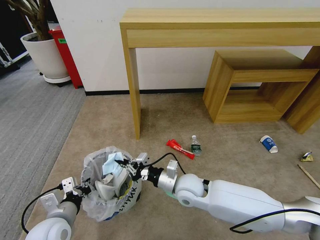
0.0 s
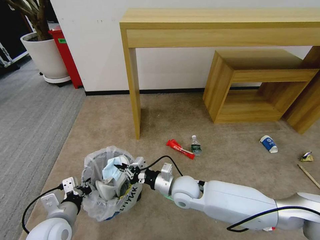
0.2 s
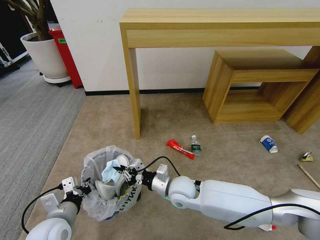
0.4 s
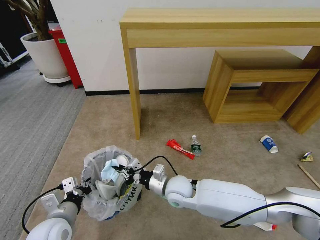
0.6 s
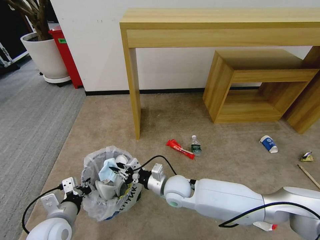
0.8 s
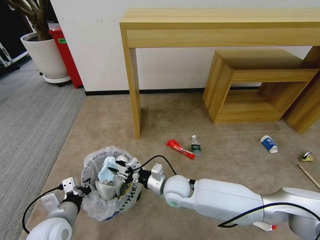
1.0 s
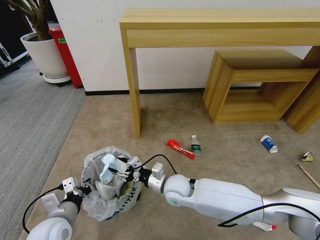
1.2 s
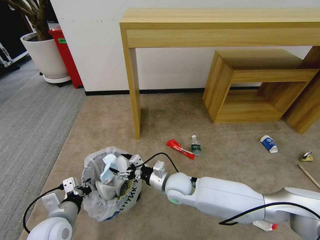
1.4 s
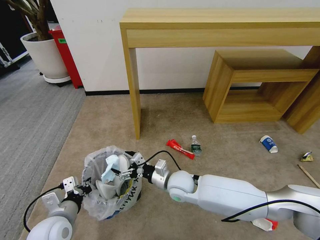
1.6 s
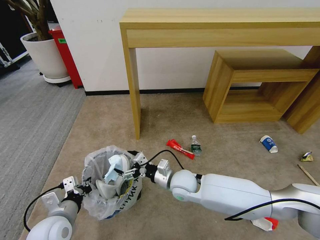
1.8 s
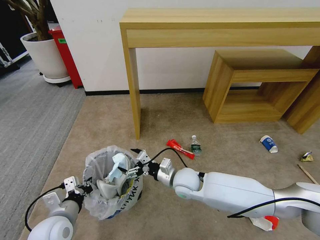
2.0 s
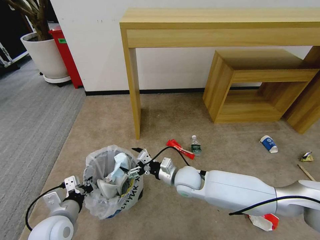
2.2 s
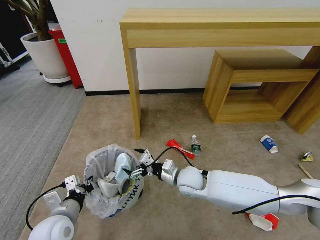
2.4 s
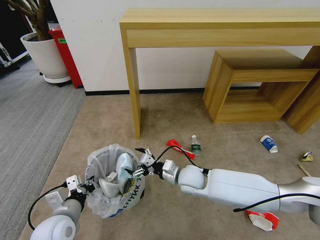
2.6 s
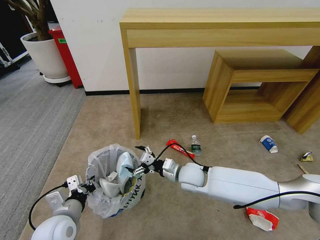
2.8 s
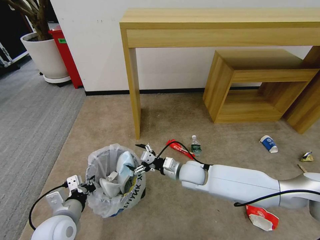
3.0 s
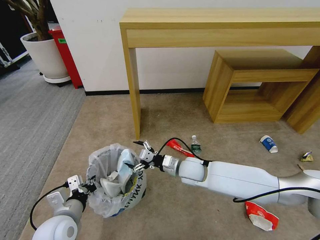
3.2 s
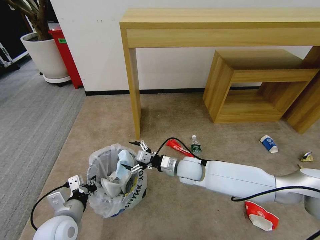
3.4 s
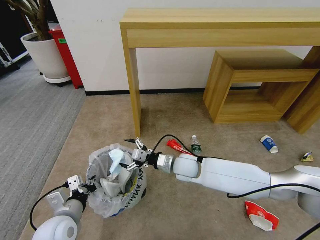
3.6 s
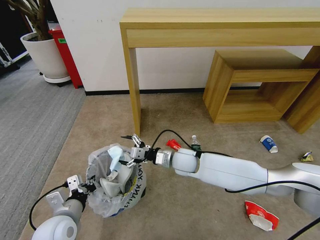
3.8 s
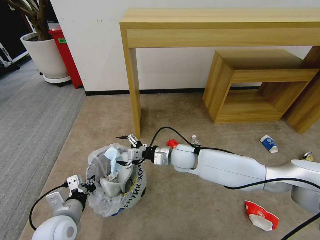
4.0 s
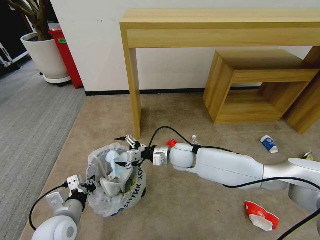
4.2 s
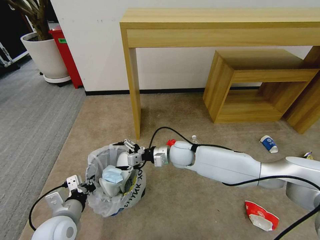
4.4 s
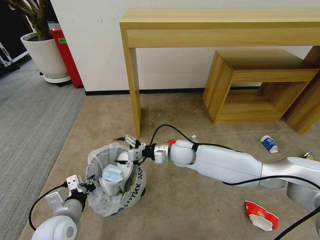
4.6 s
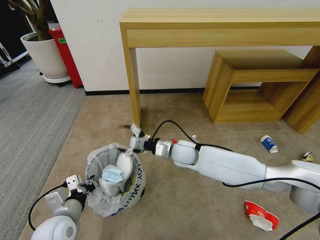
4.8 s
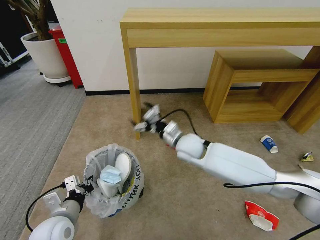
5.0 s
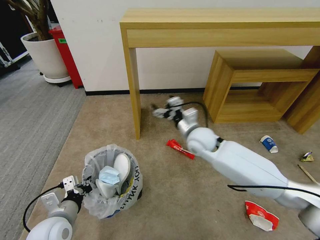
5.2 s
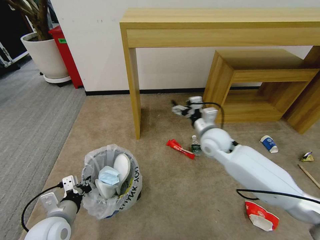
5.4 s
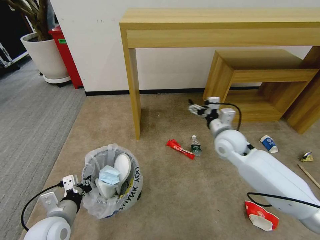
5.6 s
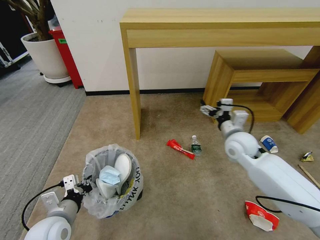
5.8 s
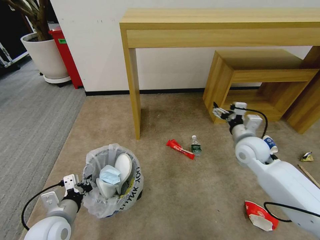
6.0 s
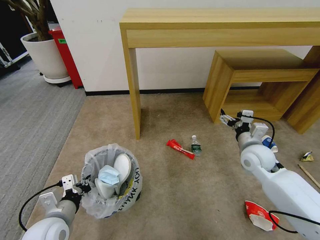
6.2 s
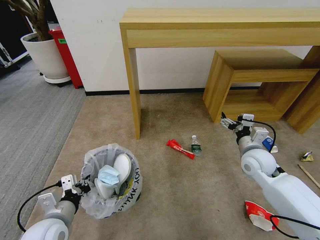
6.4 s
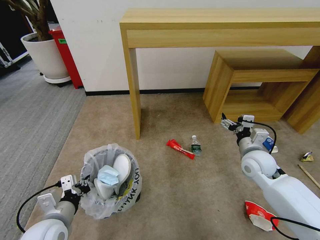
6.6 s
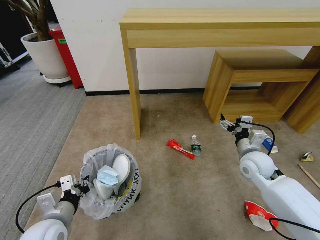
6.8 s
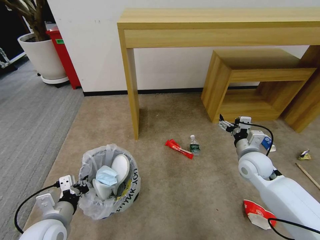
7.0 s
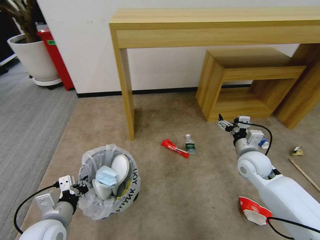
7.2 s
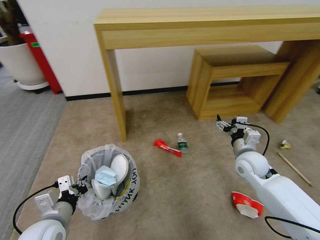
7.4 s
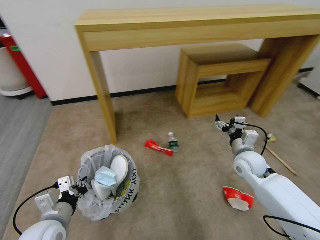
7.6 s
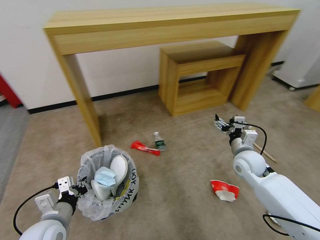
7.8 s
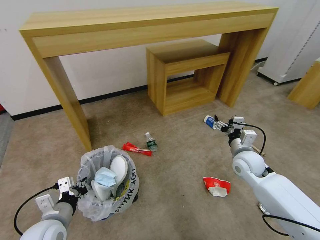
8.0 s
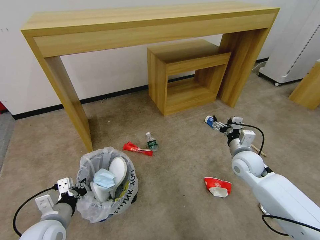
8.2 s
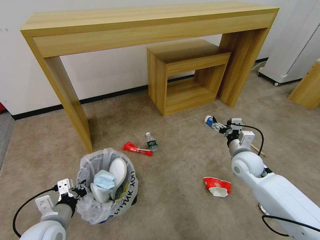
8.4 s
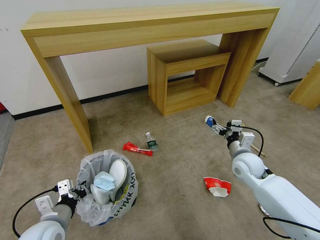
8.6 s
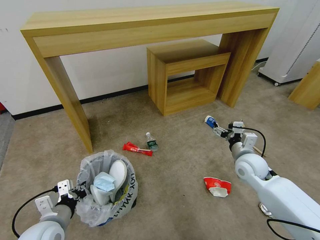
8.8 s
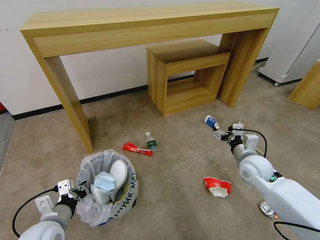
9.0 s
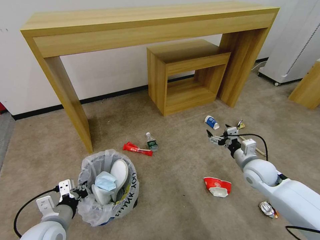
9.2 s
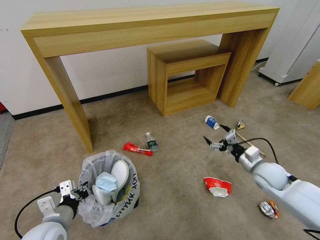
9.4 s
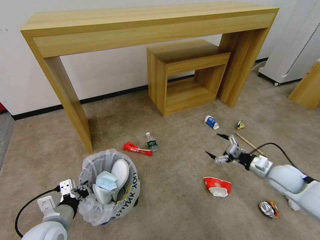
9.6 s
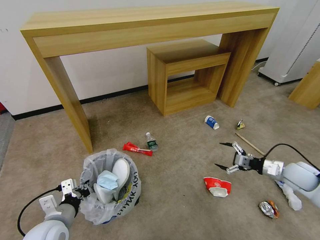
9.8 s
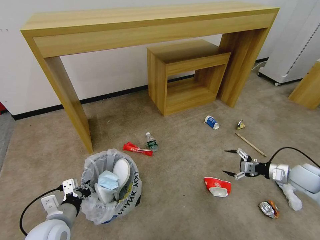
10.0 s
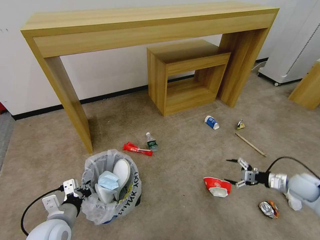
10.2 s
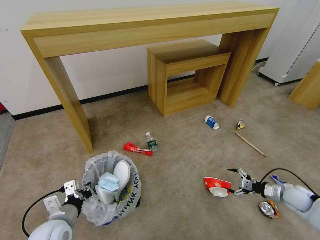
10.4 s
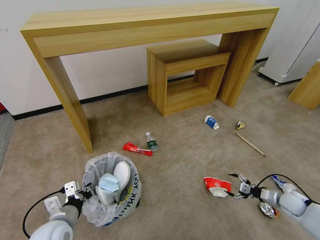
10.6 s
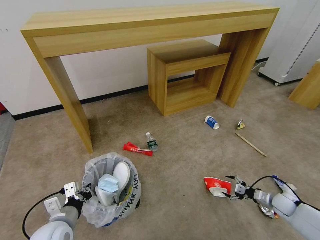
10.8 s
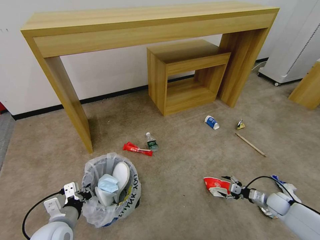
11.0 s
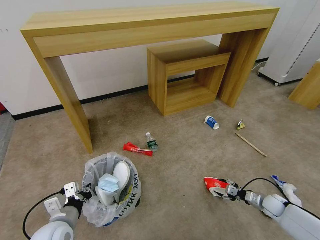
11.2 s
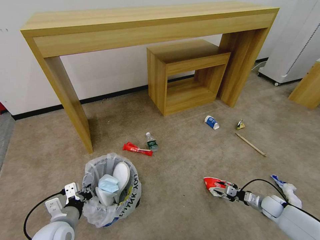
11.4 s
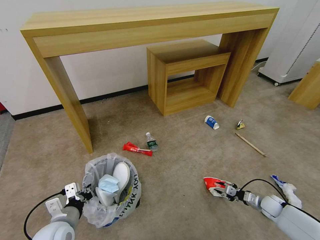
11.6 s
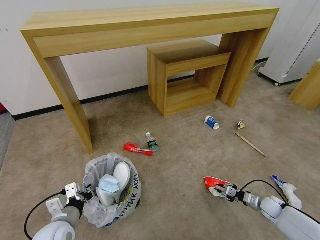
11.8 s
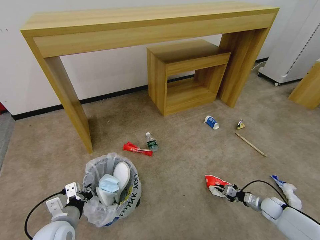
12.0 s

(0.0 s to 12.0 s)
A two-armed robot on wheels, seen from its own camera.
Task of the whole recording: Pick up the trash bin and place the garbage on the floor into it.
0.0 s - 1.6 s: The right gripper opens.
1.6 s - 3.0 s: The right gripper moves roughly 5 cm.
3.0 s - 4.4 s: The right gripper shifts approximately 5 cm forward.
4.4 s - 6.0 s: The right gripper shifts approximately 20 cm to the right.
6.0 s - 7.6 s: The right gripper goes roughly 5 cm downward.
9.0 s - 10.4 s: The right gripper heads to the right and downward, covering some 25 cm.
10.4 s - 12.0 s: The right gripper moves downward, roughly 10 cm, and closes.

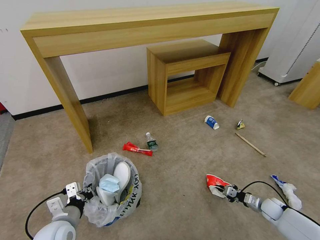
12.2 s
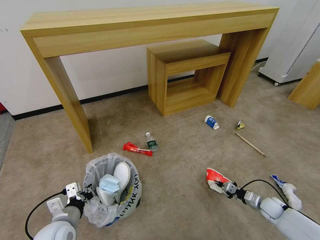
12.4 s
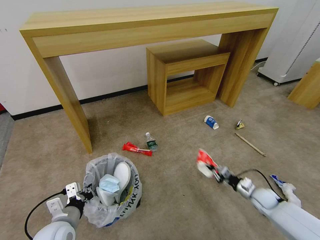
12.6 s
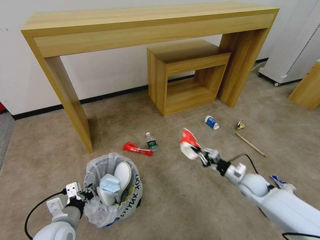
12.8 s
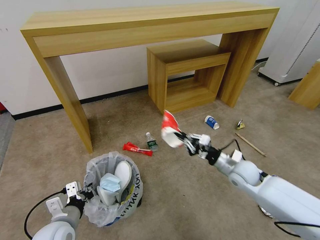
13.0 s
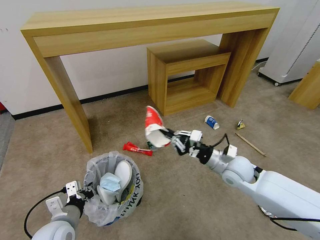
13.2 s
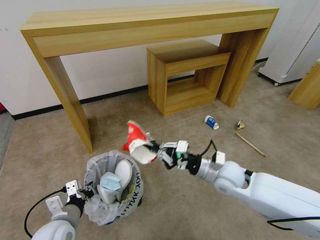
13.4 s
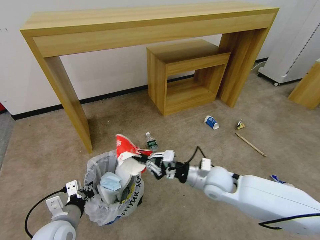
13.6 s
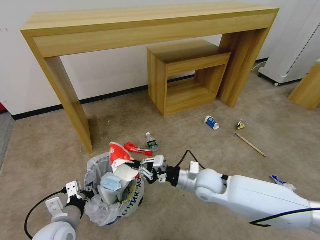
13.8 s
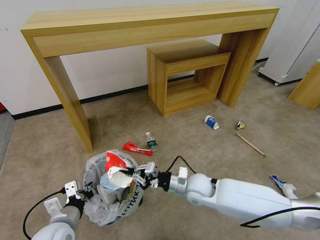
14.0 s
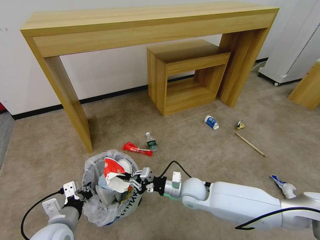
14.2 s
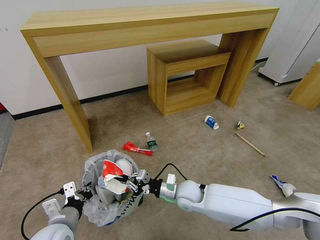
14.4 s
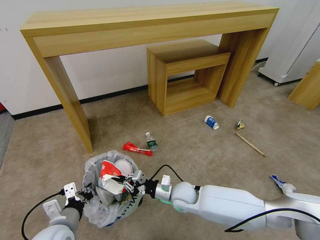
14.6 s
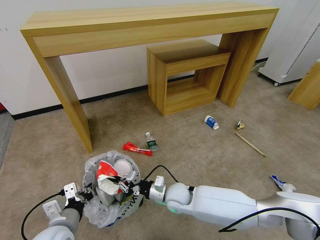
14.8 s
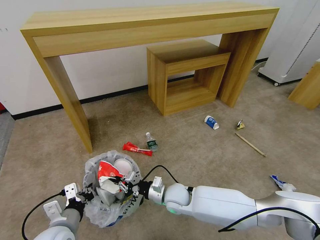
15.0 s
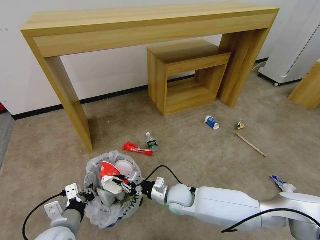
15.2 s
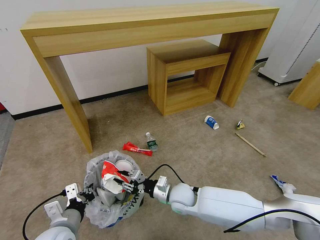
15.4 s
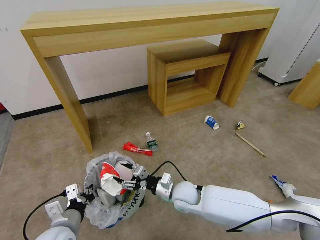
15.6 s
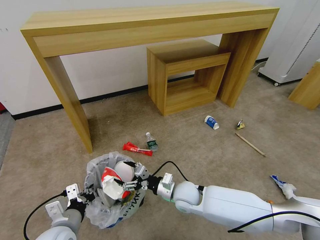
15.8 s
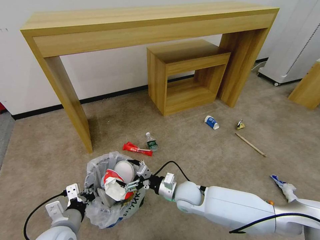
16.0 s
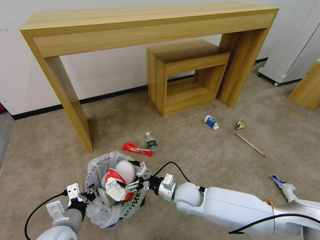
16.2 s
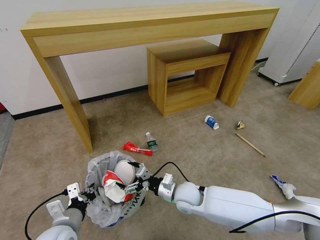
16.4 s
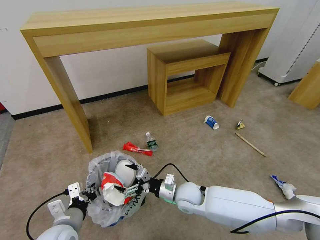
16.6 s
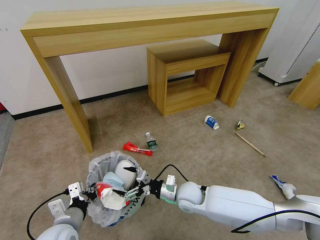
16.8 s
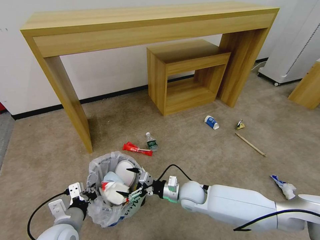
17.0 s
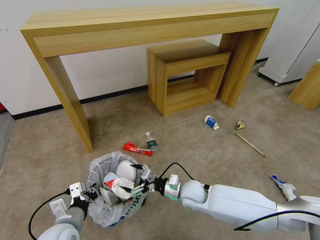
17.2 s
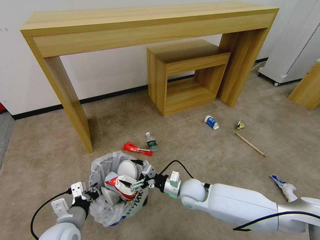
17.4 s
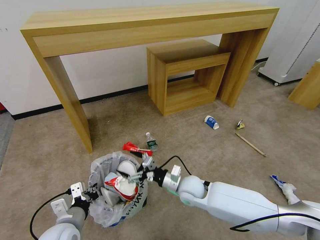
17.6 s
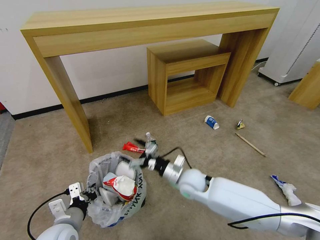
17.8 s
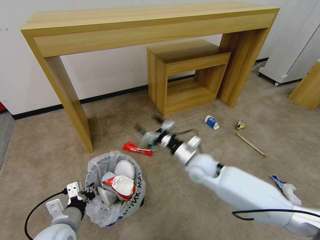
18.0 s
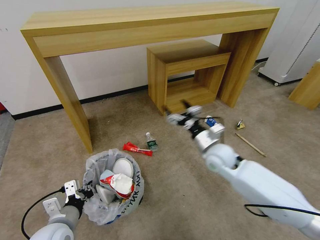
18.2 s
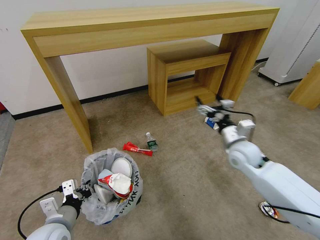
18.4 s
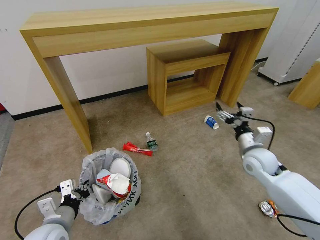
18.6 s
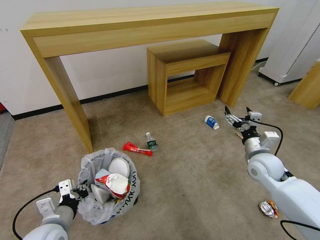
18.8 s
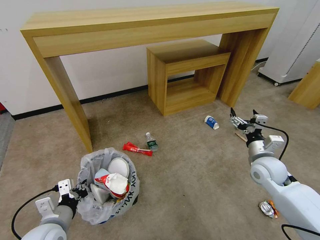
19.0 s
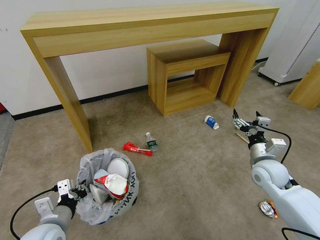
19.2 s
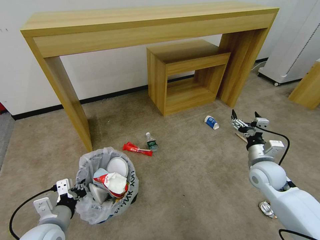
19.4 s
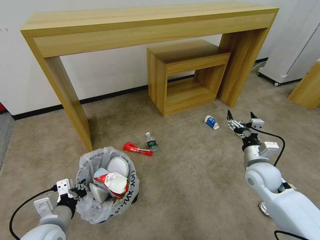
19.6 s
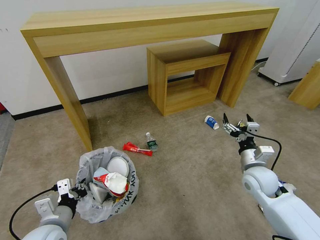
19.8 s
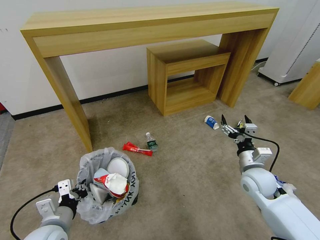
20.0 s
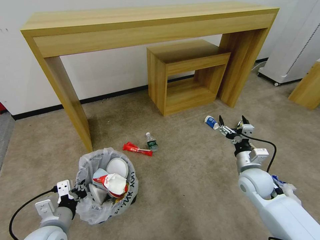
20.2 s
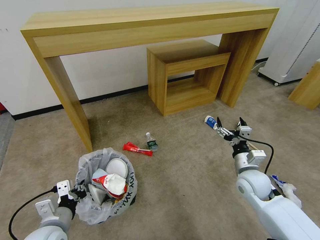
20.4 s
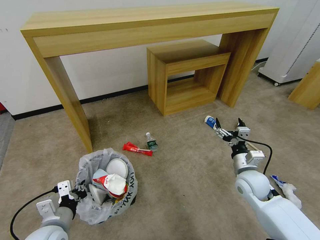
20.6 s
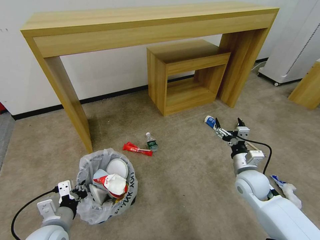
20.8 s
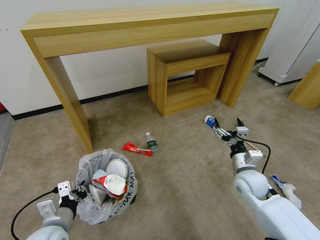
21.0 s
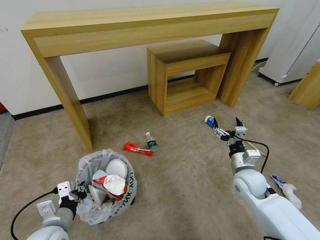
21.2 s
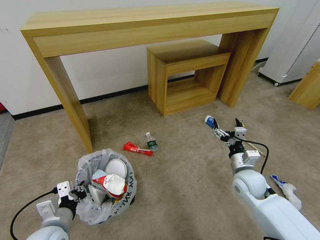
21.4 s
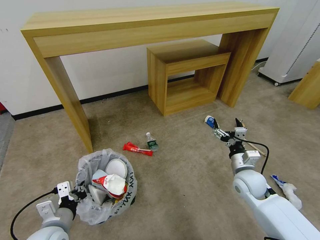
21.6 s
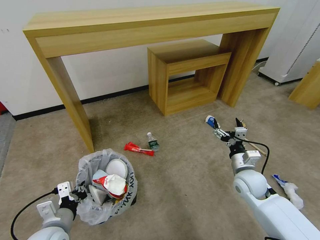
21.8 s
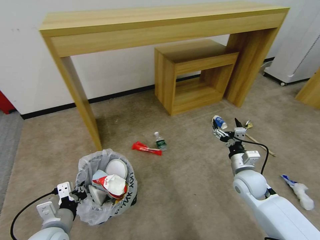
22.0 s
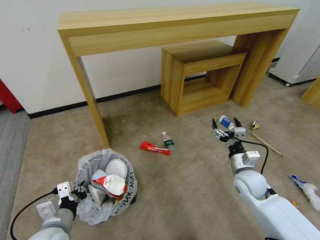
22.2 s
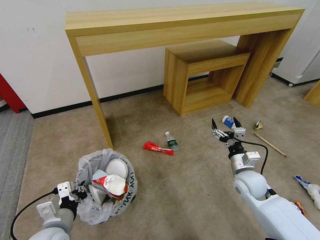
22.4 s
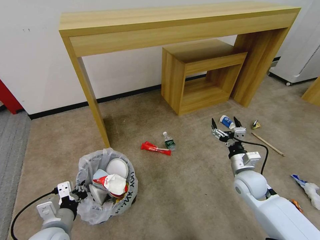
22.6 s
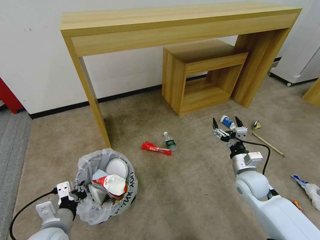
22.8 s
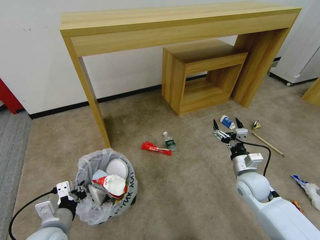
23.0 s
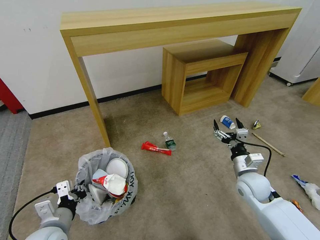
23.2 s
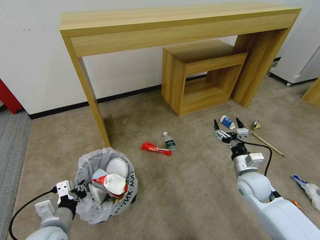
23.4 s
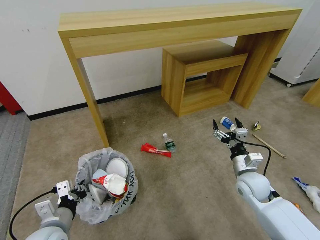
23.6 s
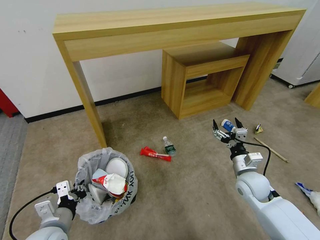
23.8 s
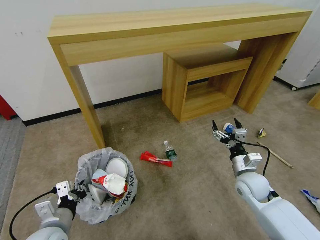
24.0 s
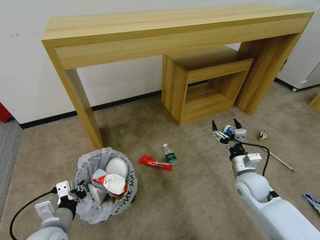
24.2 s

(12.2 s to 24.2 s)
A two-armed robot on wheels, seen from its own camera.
Task of the whole recording: Pick up the trash bin and place the garbage on the floor into it.
12.2 s - 13.8 s: The right gripper heads to the left and upward, covering roughly 40 cm.
13.8 s - 15.2 s: The right gripper shifts about 10 cm downward and to the left.
15.2 s - 16.6 s: The right gripper opens up.
16.6 s - 18.2 s: The right gripper goes approximately 20 cm upward, to the right and forward.
18.2 s - 19.8 s: The right gripper moves to the right and backward, some 15 cm.
19.8 s - 21.2 s: The grippers stay close to where they were, moving slightly.
